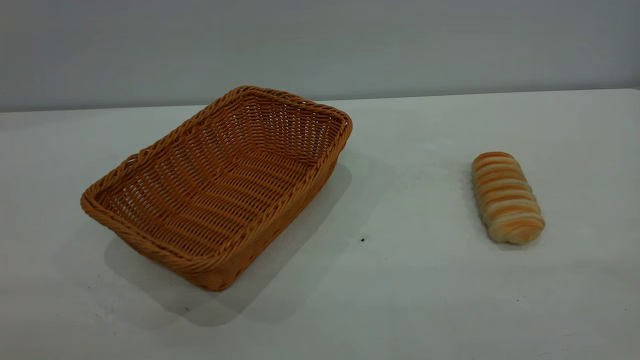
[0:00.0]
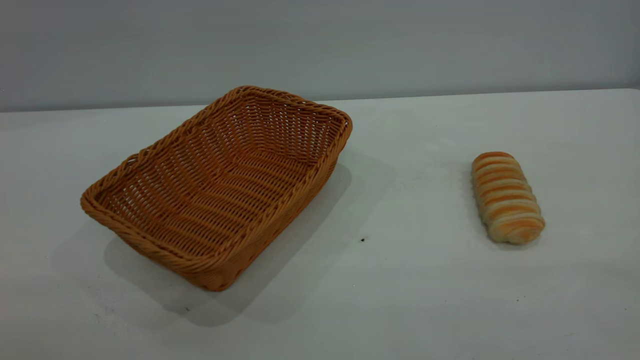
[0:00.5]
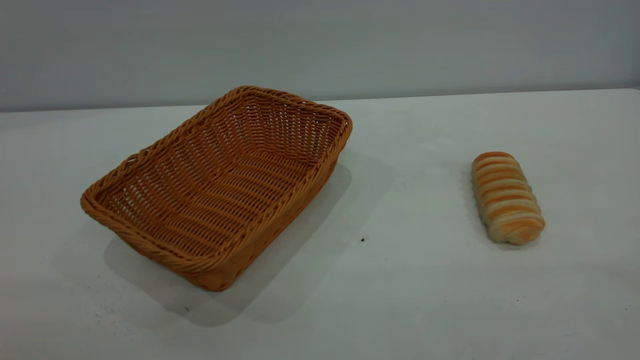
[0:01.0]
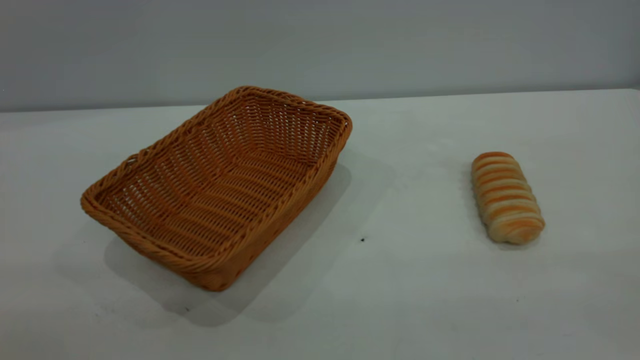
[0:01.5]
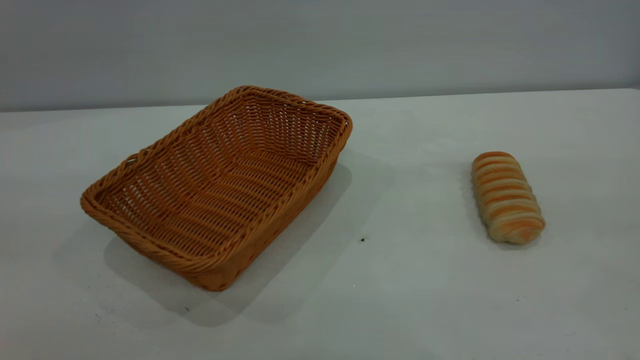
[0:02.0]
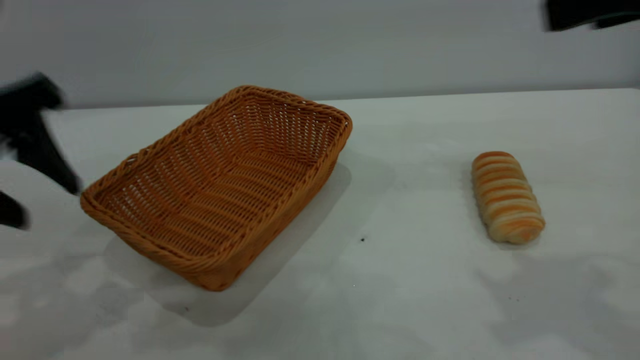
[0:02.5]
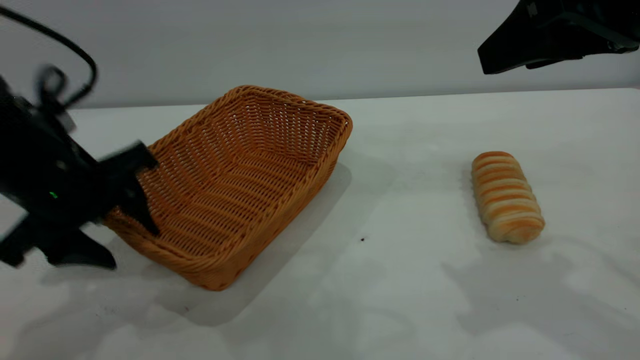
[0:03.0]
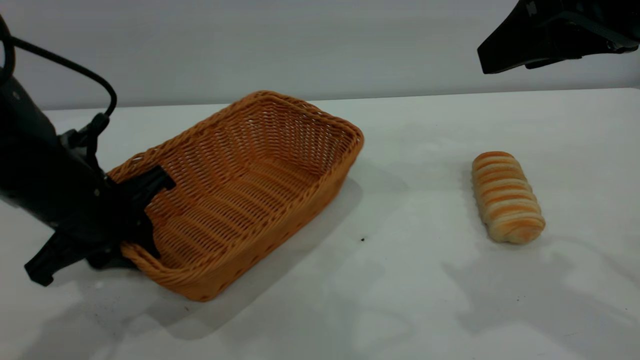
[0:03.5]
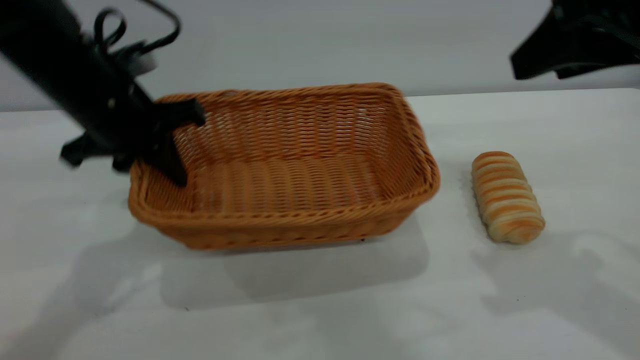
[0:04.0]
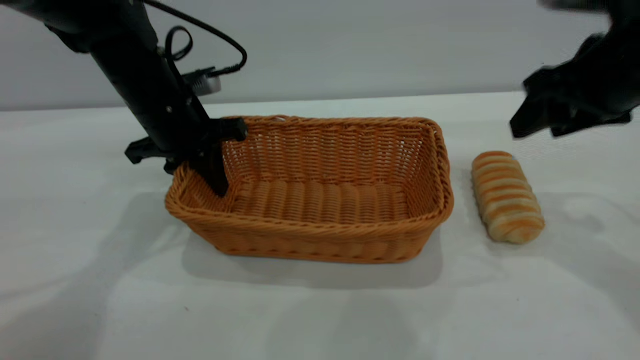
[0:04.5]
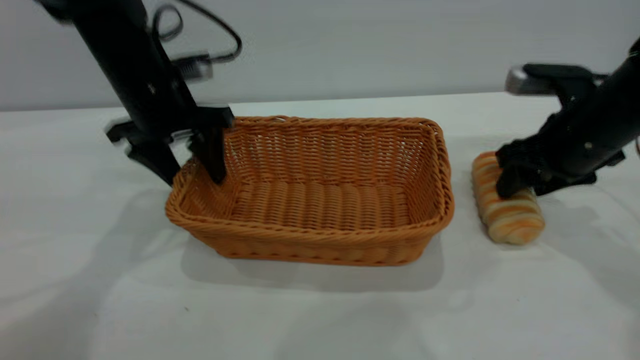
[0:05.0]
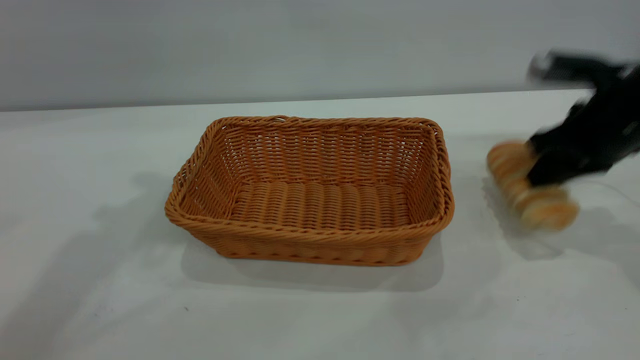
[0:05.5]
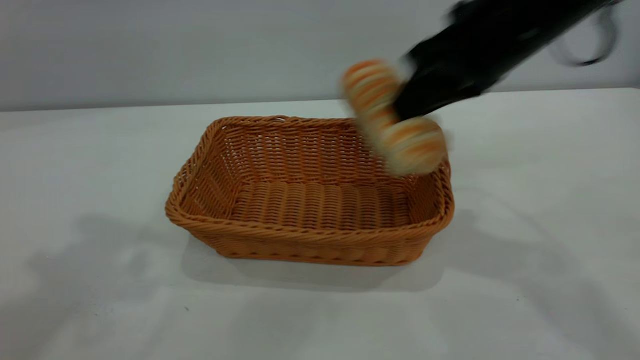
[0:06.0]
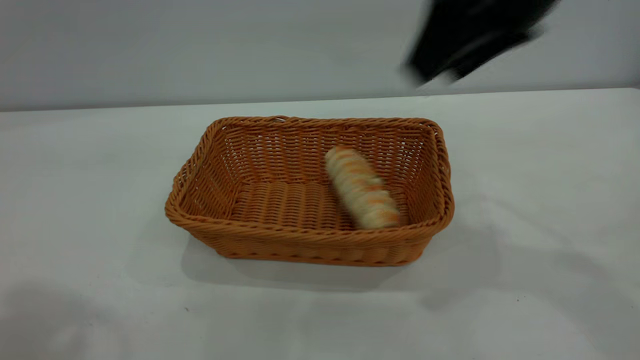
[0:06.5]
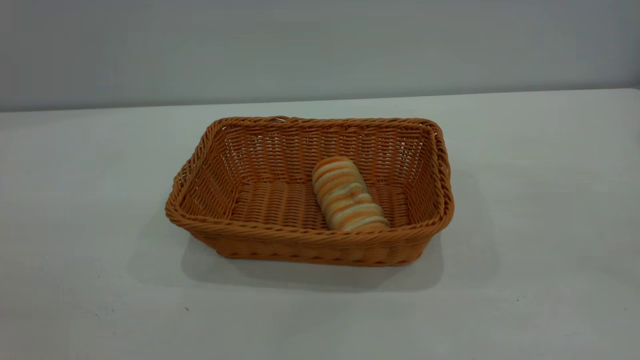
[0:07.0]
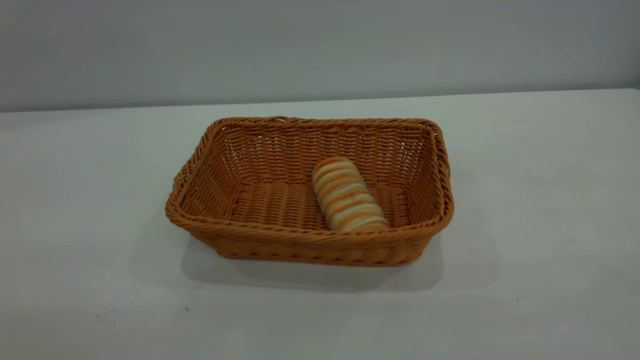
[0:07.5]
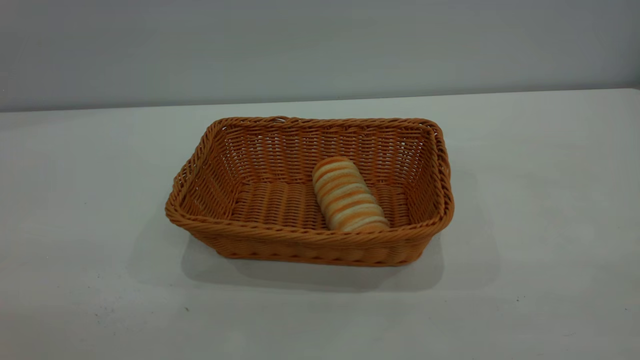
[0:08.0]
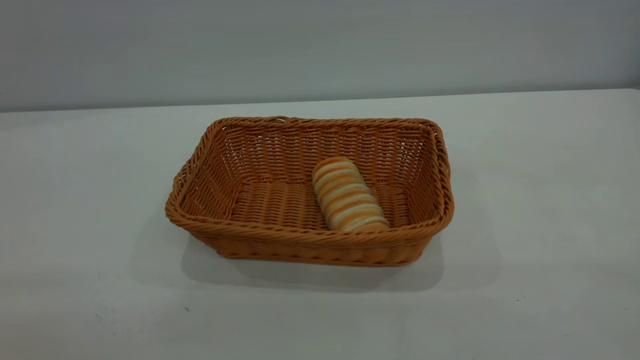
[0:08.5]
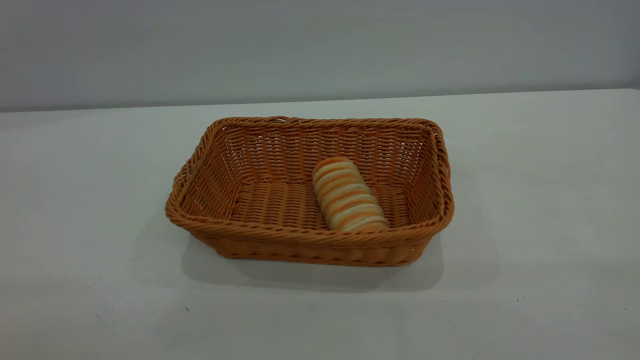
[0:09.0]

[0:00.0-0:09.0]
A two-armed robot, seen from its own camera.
Task of the whole recording: One hand grasps the yellow basket and places it in the middle of the table, while the other hand picks up the long bread and puts it into the yellow basket.
Step, 0:00.0 to 0:05.0: Move the basket to the center of view.
0:02.0 to 0:04.5: Both grippers move forward and downward, approximately 30 cm. The left gripper closes its fingers.
0:04.5 to 0:07.0: Both grippers travel together backward and upward, roughly 35 cm. The left gripper opens its fingers. The right gripper closes and opens again.
